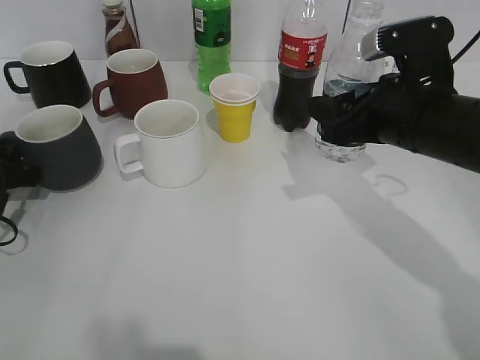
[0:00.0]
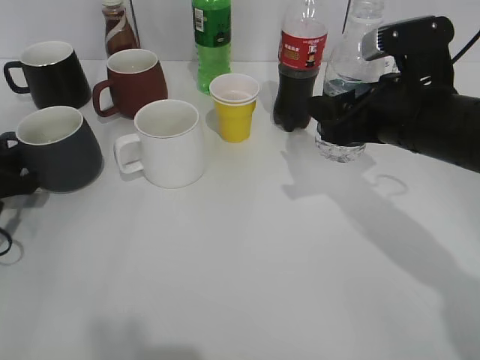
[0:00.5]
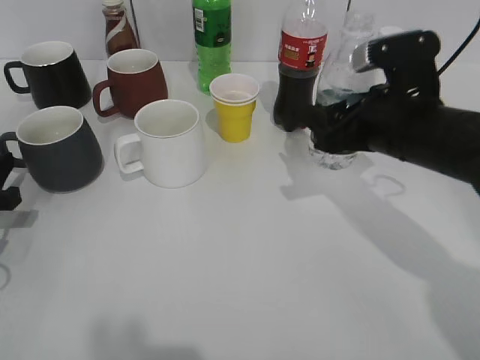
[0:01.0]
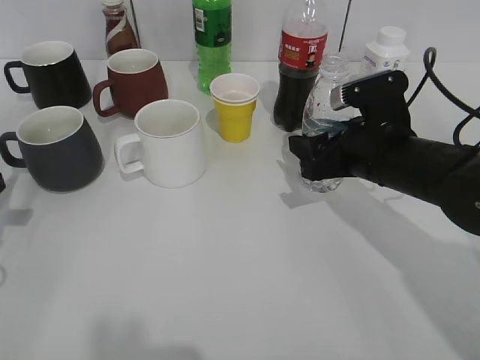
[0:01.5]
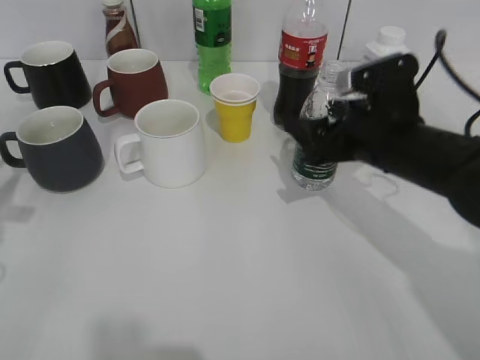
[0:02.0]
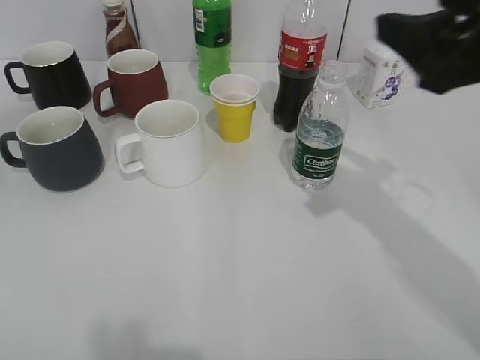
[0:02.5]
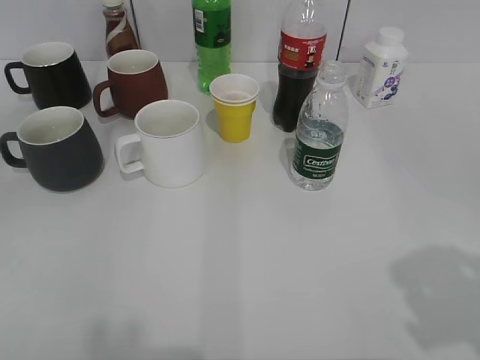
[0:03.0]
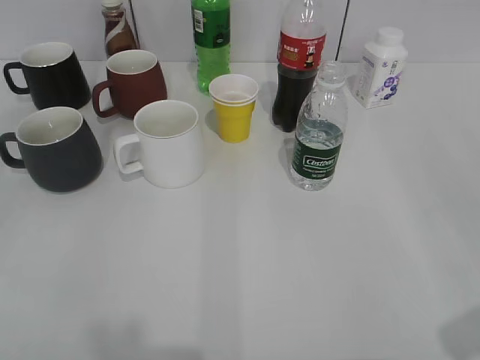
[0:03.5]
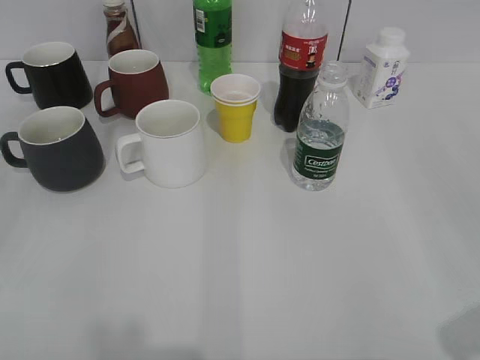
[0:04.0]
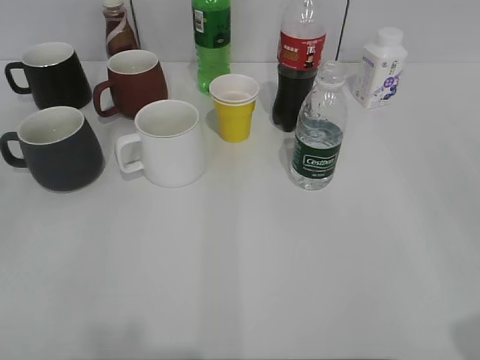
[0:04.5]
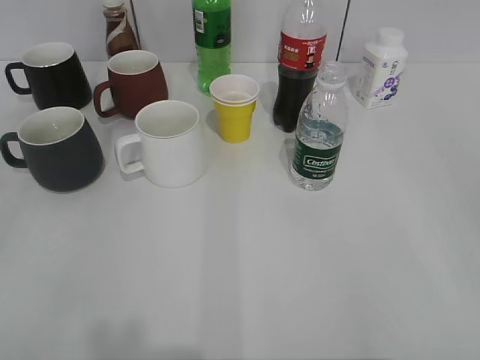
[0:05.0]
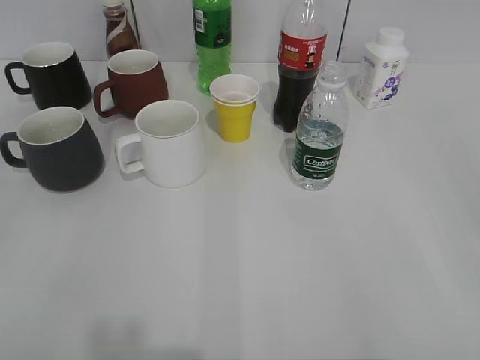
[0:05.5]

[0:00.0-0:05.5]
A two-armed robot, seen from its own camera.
Step, 0:01.0 to 0:02.0: Place the water bottle on the table with right gripper.
0:00.0 to 0:02.0: The right gripper shifts by roughly 5 cm, and opens its fingers. Meanwhile the left gripper moves upward and backward, some 10 cm, and opens.
0:02.0 to 0:03.5: The left gripper shifts some 20 cm backward and upward, and opens up; the right gripper heads backward, to the right and upward, covering approximately 30 cm.

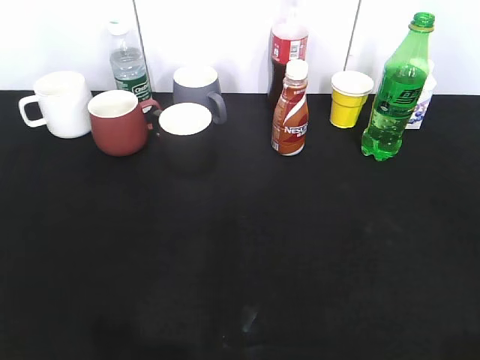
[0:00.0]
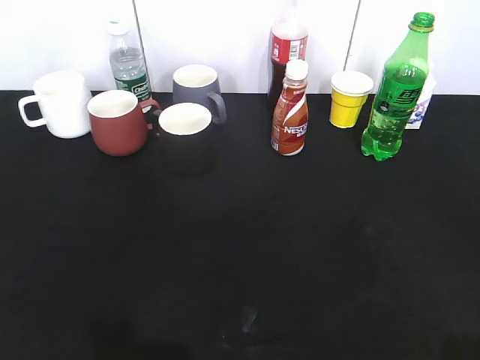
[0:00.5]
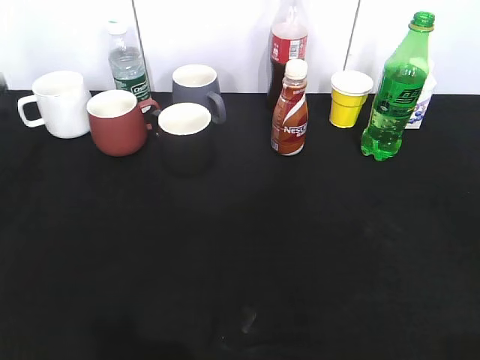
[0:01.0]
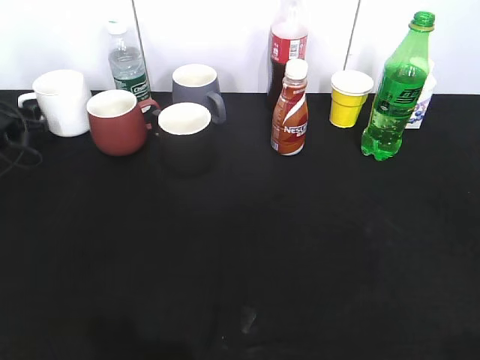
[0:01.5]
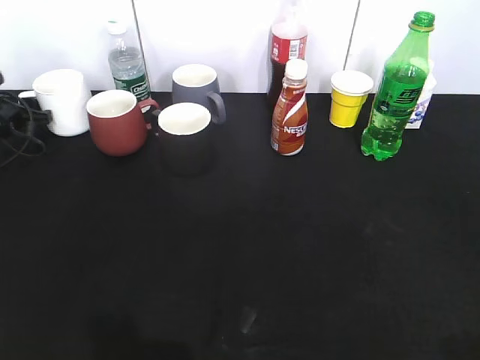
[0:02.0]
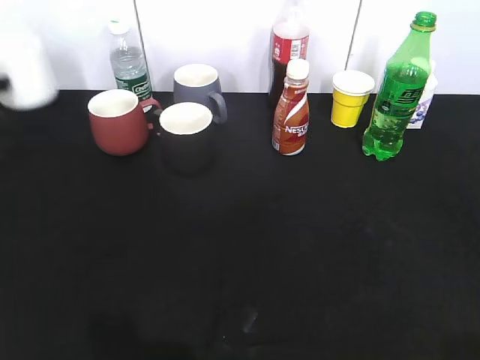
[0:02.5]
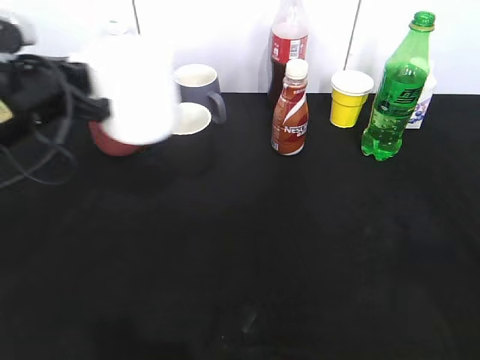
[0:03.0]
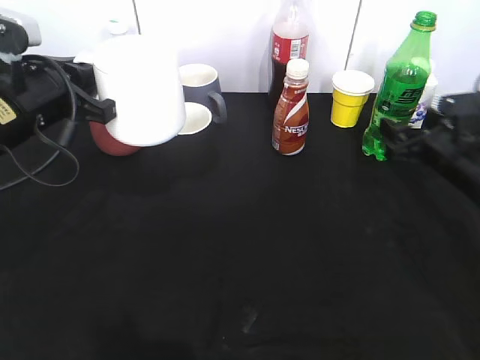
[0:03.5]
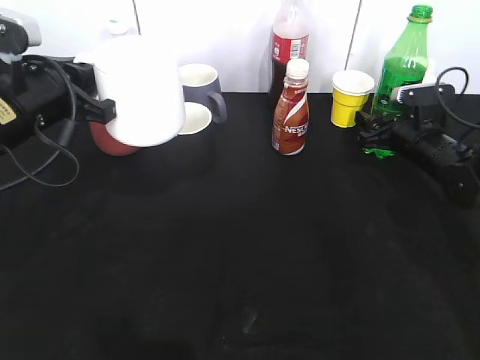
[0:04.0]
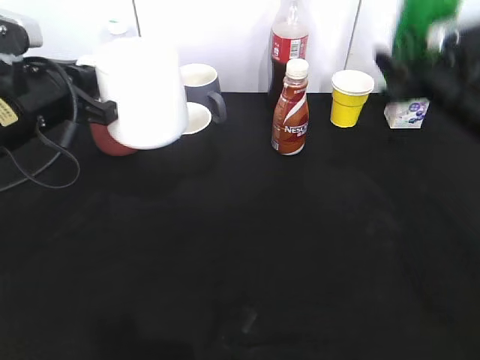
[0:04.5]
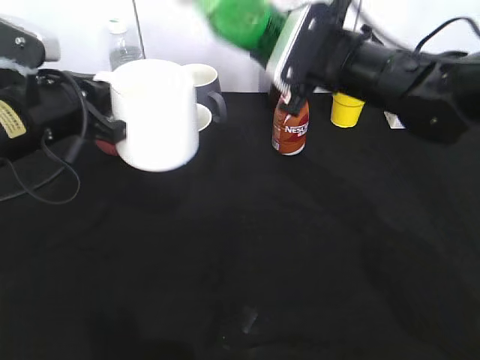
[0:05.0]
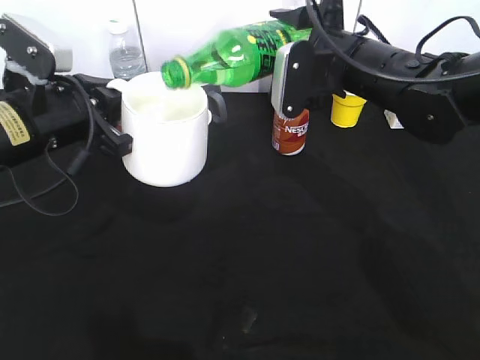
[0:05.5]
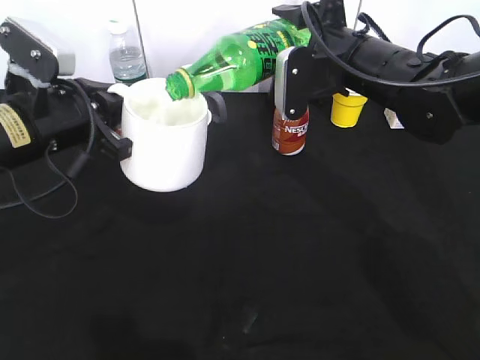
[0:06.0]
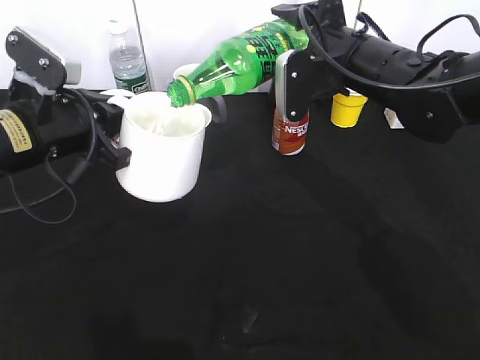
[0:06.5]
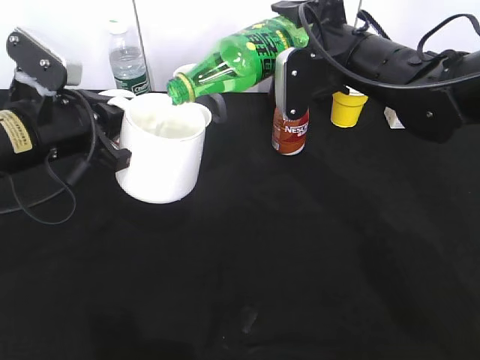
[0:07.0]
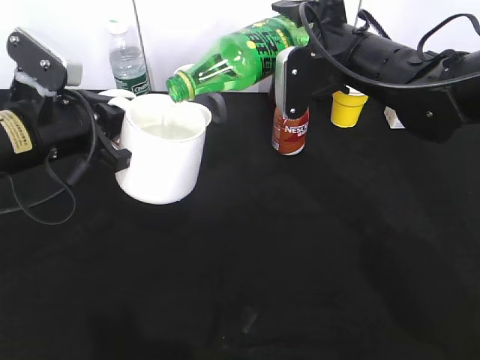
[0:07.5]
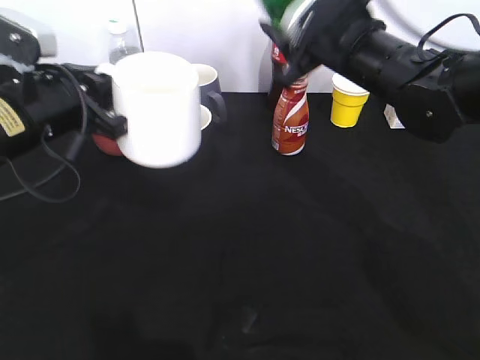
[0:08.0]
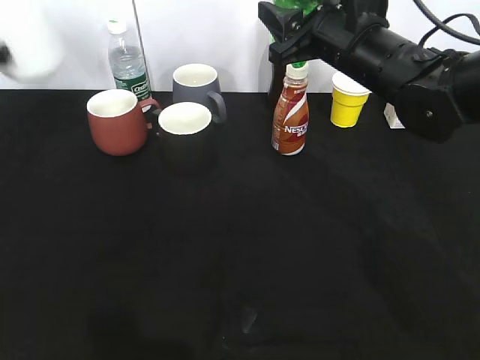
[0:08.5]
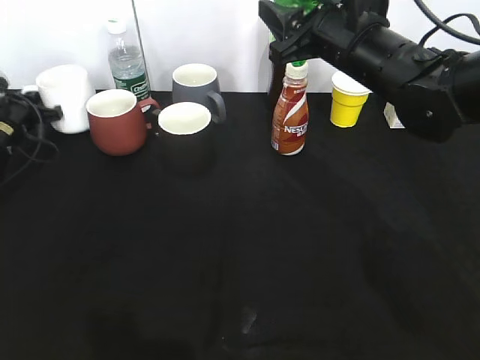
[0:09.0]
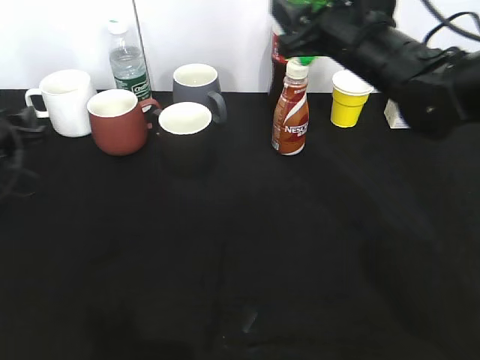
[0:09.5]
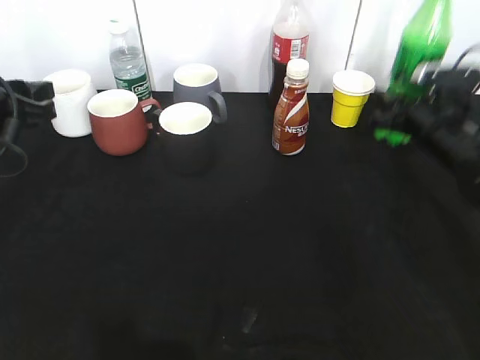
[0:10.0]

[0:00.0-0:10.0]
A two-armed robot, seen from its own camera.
Step, 0:00.0 to 0:02.0: Grasp the white cup with left gripper.
Step, 0:02.5 to 0:03.0: Lift the white cup with left gripper.
Step, 0:03.5 to 0:04.0: Grasp the bottle with sprite with right gripper.
Step, 0:04.5 to 0:07.5: Pour the sprite from bottle to cup with right gripper.
Step, 0:08.0 to 0:09.0: Place the white cup on the table with left gripper.
0:00.0 to 0:02.0: The left gripper travels forward and downward by approximately 50 cm.
0:02.0 to 0:04.0: The left gripper goes some 30 cm backward, to the right and upward, and closes. Meanwhile the right gripper travels forward and downward by roughly 50 cm.
0:04.0 to 0:06.0: The right gripper is displaced upward and to the left by approximately 20 cm, and closes.
0:08.0 to 0:10.0: The left gripper moves to the left, some 10 cm, travels forward and back again, about 20 cm each way, and opens. The right gripper travels to the right and downward by some 20 cm.

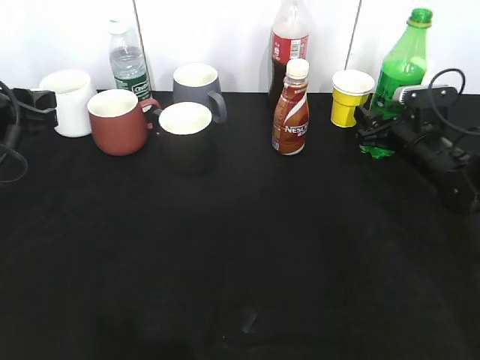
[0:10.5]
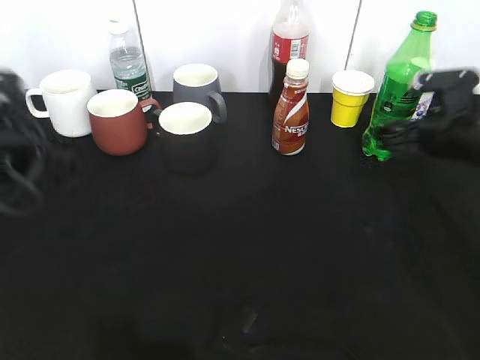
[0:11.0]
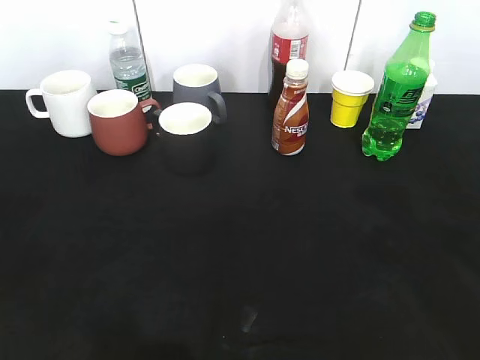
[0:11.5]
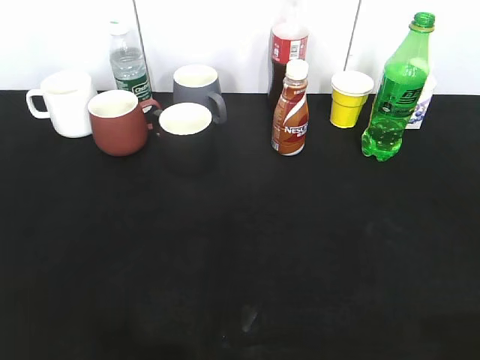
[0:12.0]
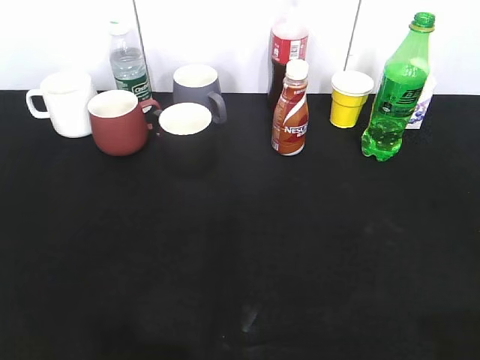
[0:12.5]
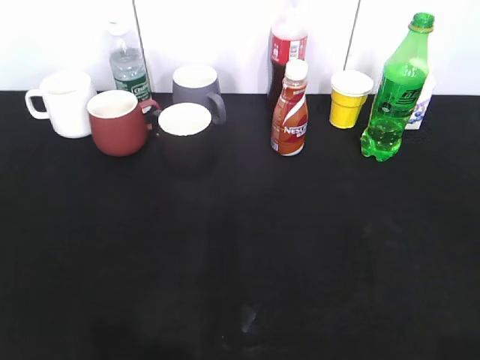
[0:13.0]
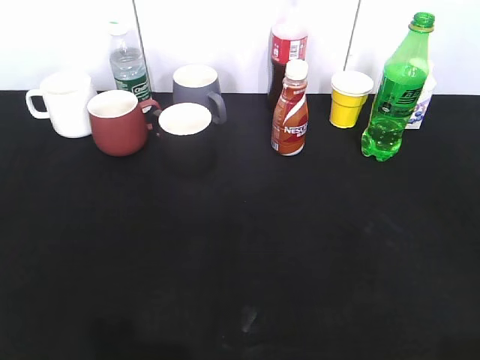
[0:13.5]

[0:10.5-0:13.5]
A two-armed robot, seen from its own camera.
0:10.5 to 0:12.0: The right gripper travels backward and upward by about 50 cm, while the left gripper travels backward by about 30 cm.

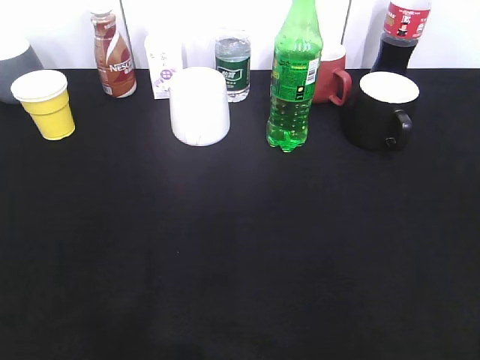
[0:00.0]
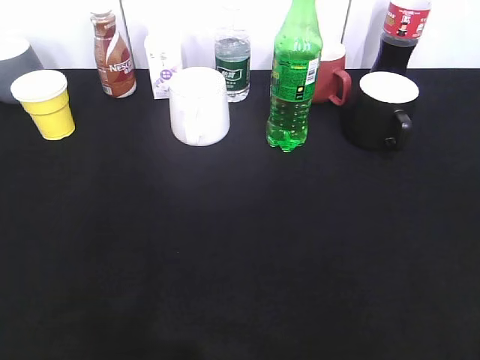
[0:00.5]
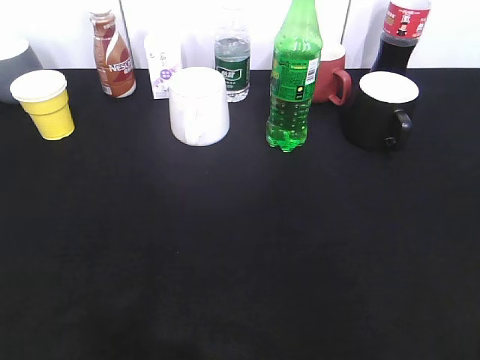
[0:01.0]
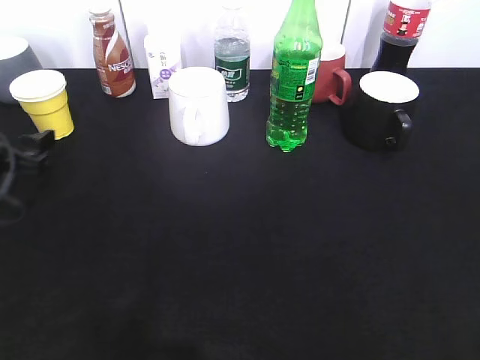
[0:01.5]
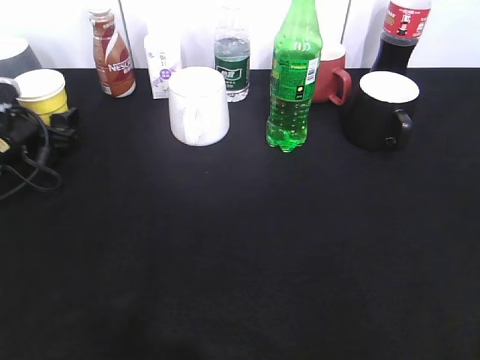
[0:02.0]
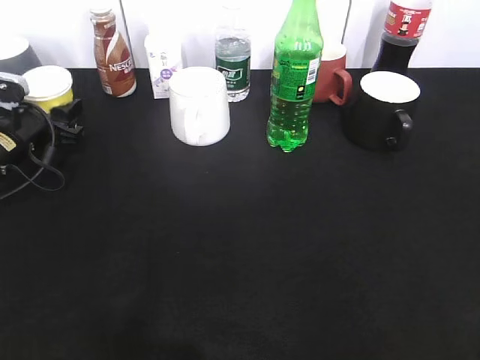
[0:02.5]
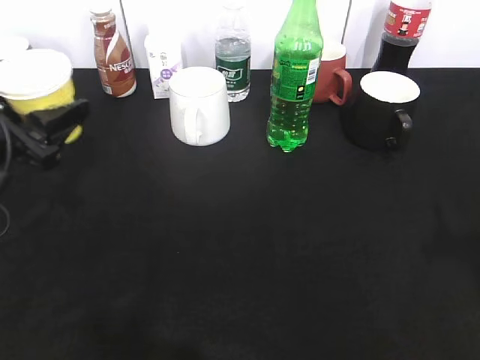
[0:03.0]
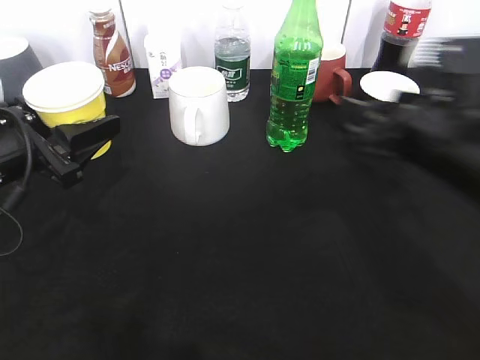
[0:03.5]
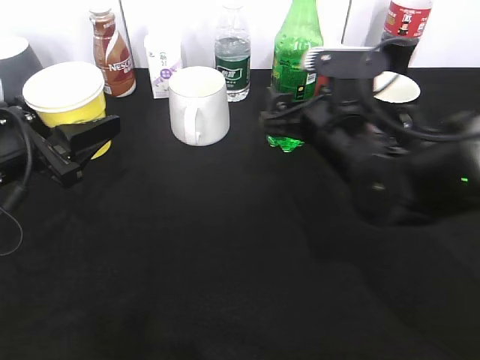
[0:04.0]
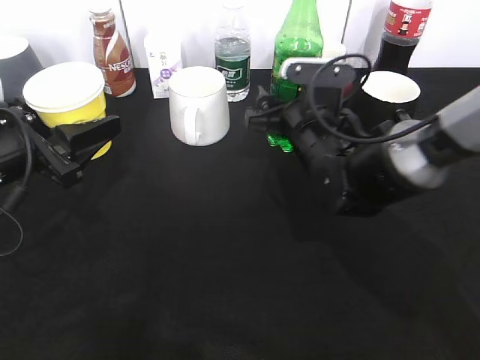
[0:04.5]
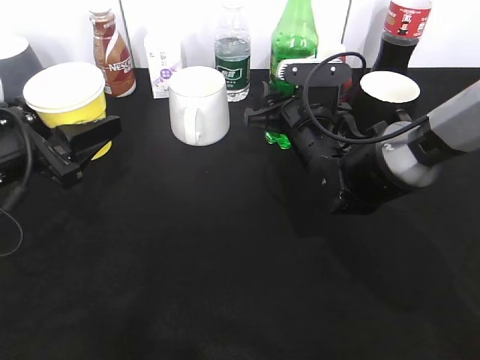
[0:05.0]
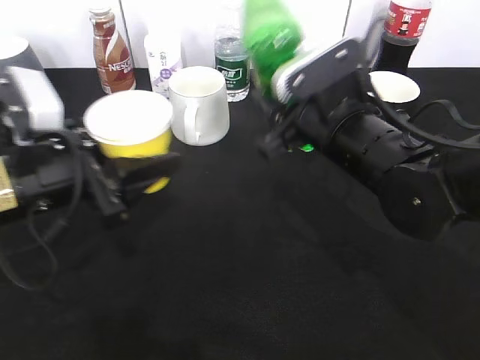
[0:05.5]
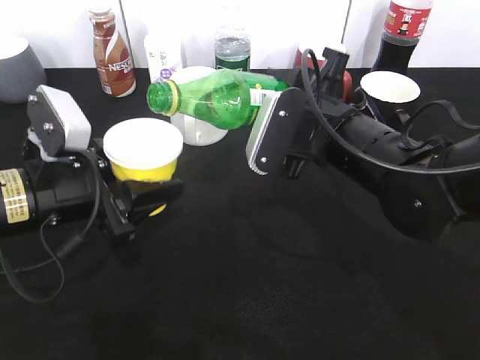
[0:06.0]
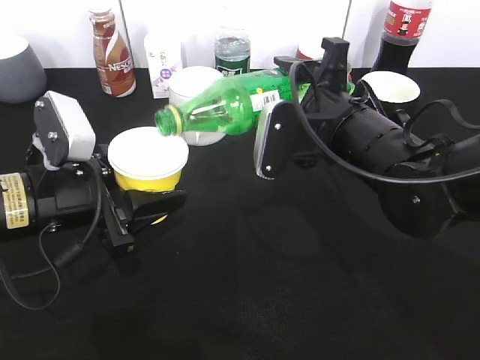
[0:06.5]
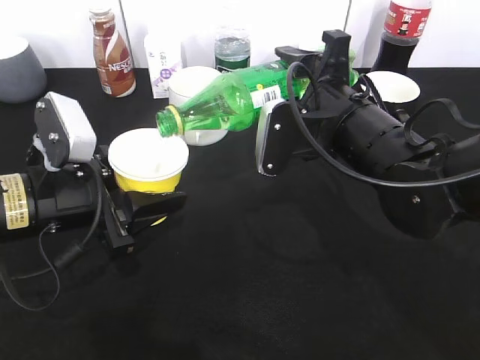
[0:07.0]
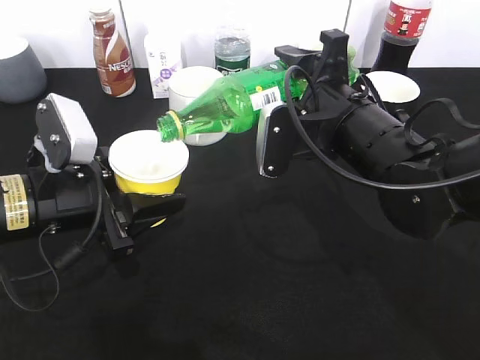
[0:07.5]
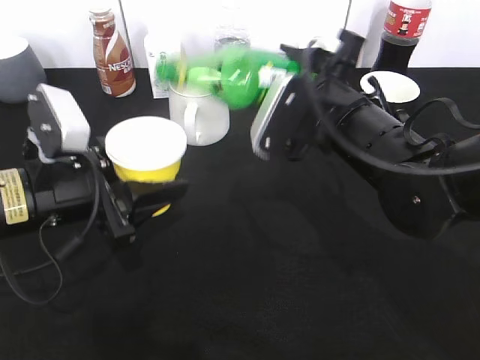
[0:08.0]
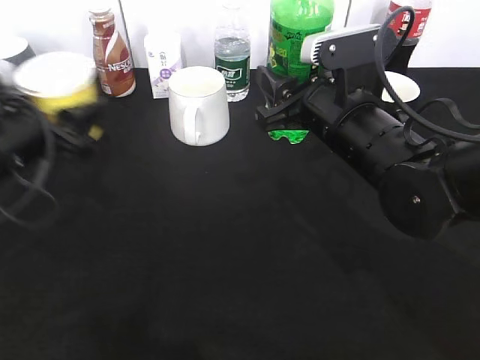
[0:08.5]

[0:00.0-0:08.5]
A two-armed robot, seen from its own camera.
Step, 0:00.0 to 0:02.0: Grasp the yellow paper cup with left gripper.
Step, 0:02.5 to 0:03.0: Lift the yellow paper cup with left gripper.
Step, 0:03.5 to 0:05.0: Grasp the bottle with sprite with right gripper.
Step, 0:05.5 to 0:07.5: Pour the sprite from bottle to cup with right gripper.
0:00.0 to 0:02.0: The left gripper shifts some 40 cm forward and downward.
0:02.0 to 0:04.0: The left gripper travels backward, upward and to the right by about 15 cm, and closes. Meanwhile the right gripper moves forward and to the left, about 35 cm, and opens up.
0:04.0 to 0:06.5: The left gripper goes some 5 cm to the right. Meanwhile the right gripper closes.
0:06.5 to 0:08.5: The left gripper moves to the left, approximately 5 cm.
